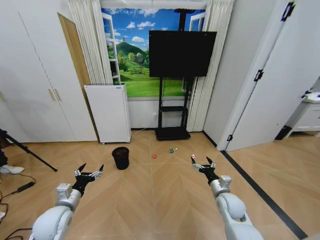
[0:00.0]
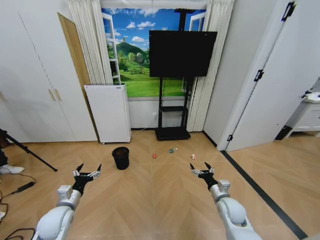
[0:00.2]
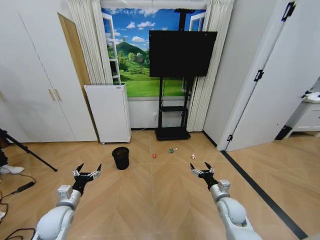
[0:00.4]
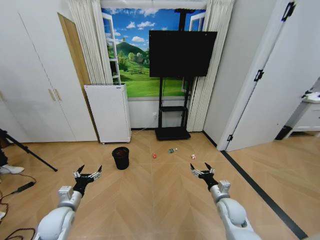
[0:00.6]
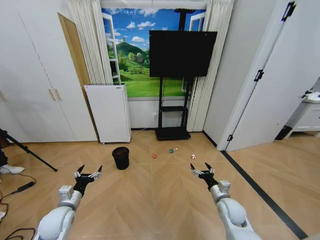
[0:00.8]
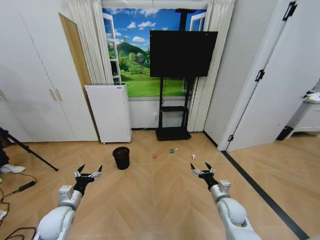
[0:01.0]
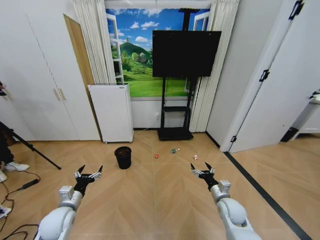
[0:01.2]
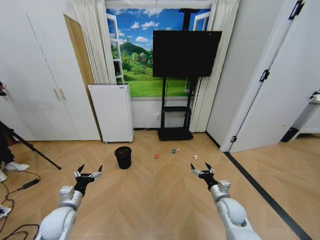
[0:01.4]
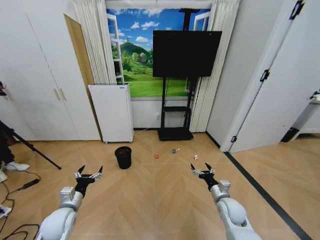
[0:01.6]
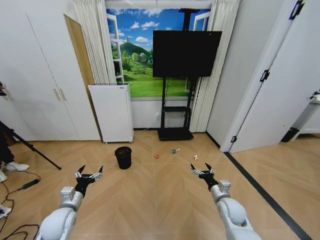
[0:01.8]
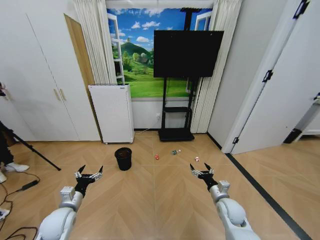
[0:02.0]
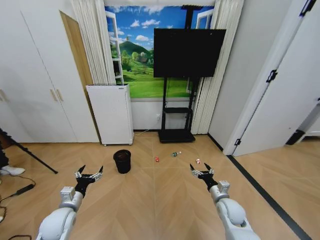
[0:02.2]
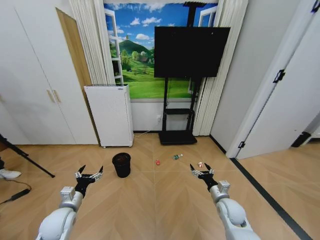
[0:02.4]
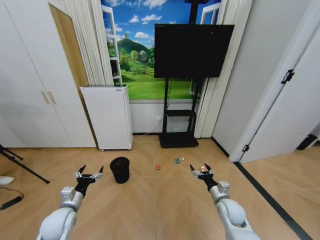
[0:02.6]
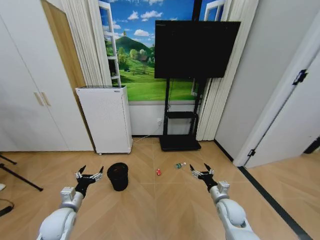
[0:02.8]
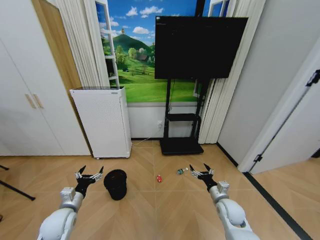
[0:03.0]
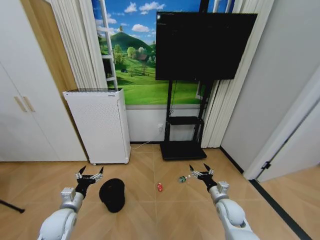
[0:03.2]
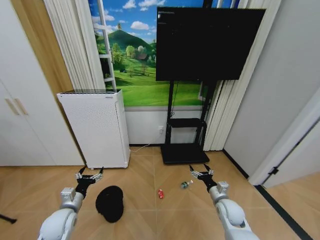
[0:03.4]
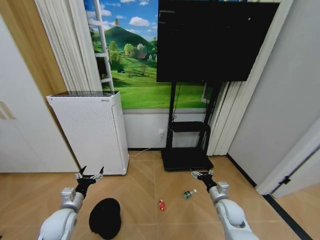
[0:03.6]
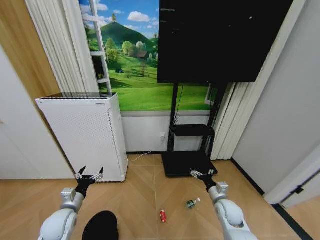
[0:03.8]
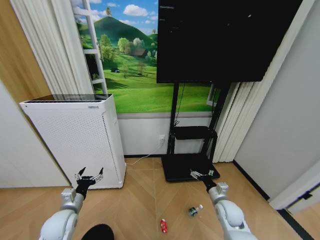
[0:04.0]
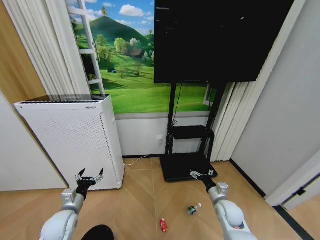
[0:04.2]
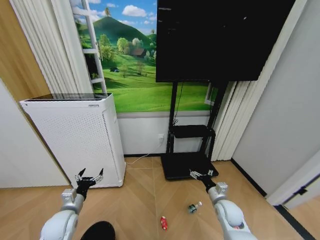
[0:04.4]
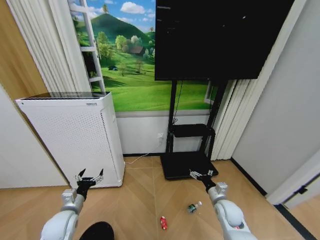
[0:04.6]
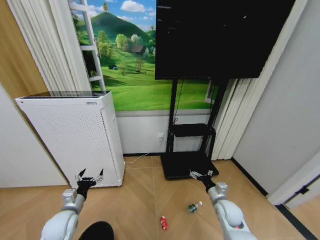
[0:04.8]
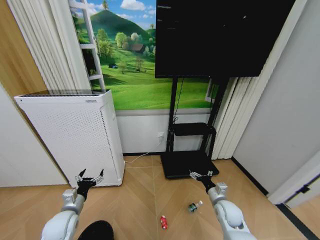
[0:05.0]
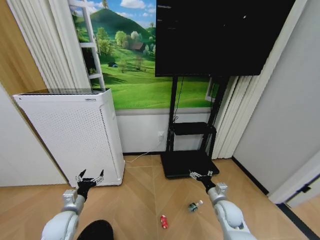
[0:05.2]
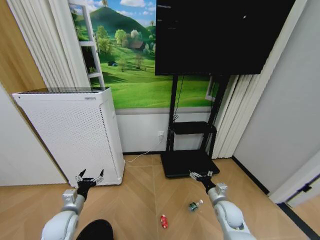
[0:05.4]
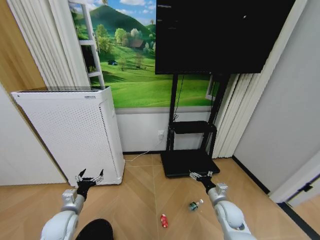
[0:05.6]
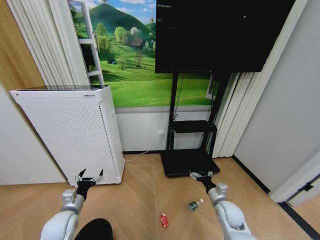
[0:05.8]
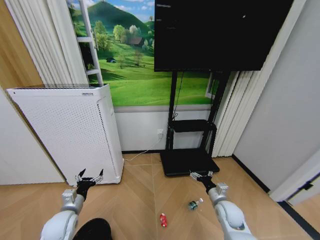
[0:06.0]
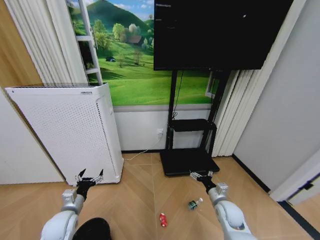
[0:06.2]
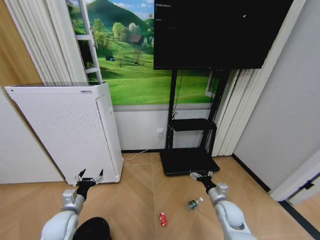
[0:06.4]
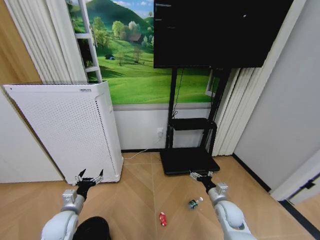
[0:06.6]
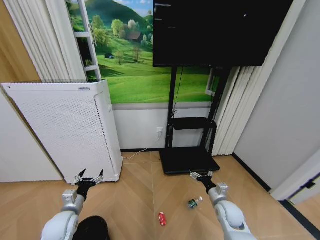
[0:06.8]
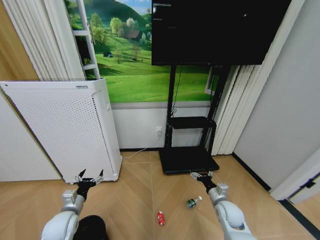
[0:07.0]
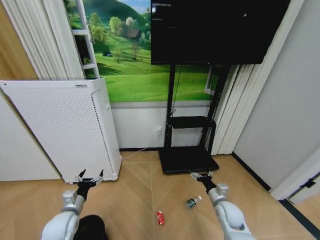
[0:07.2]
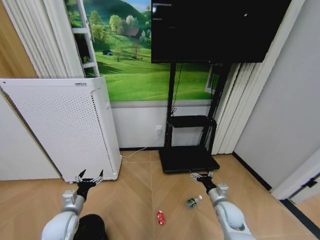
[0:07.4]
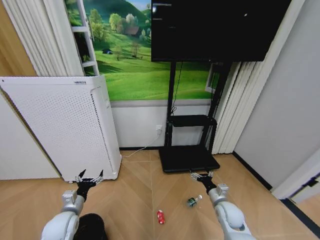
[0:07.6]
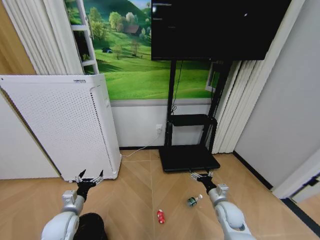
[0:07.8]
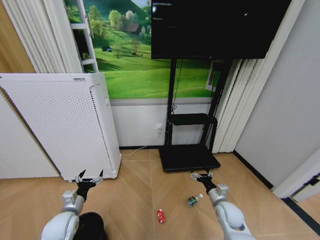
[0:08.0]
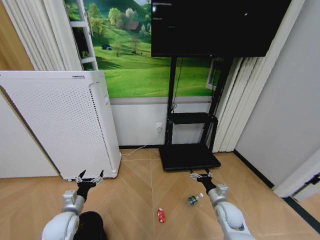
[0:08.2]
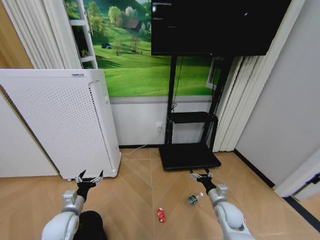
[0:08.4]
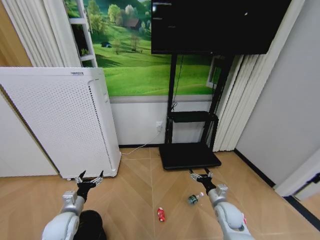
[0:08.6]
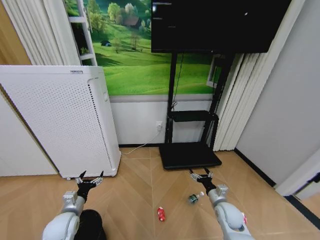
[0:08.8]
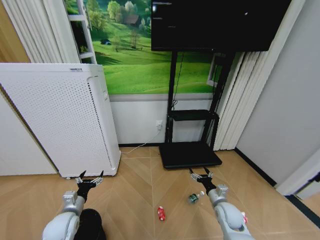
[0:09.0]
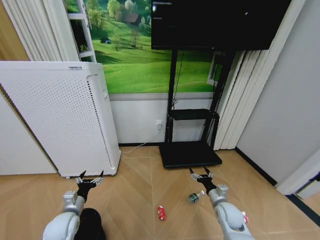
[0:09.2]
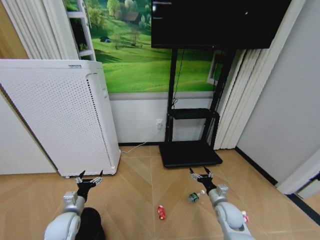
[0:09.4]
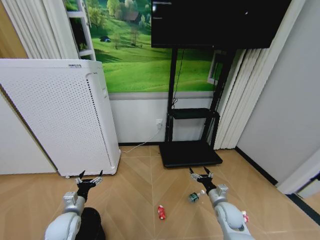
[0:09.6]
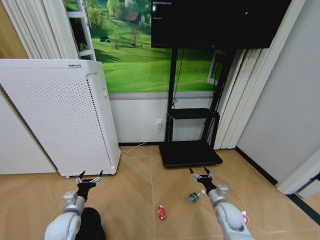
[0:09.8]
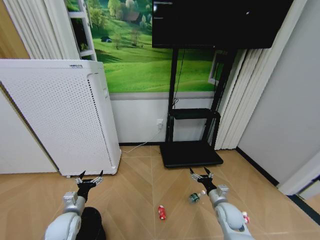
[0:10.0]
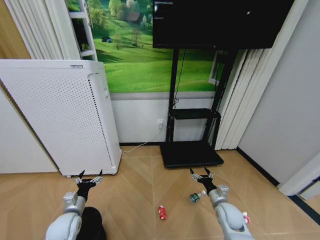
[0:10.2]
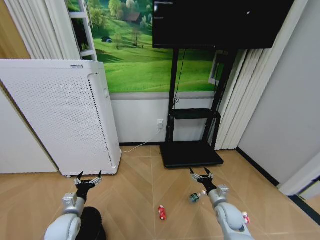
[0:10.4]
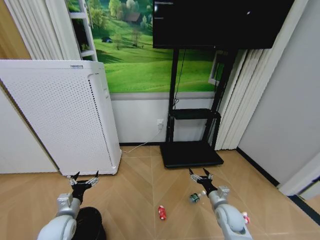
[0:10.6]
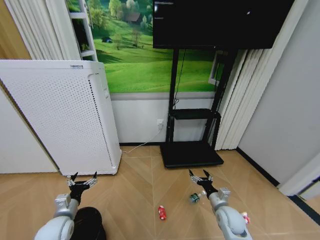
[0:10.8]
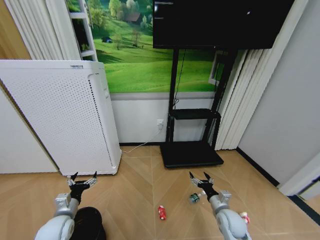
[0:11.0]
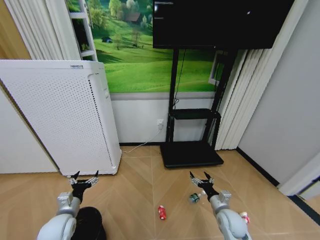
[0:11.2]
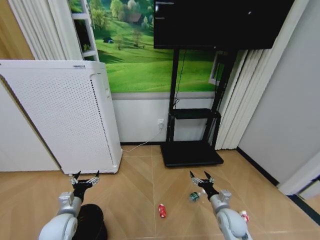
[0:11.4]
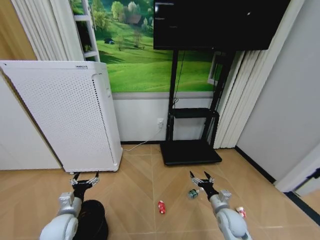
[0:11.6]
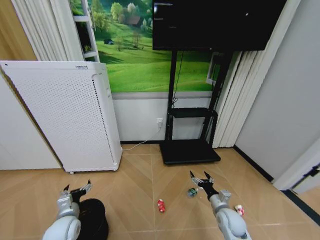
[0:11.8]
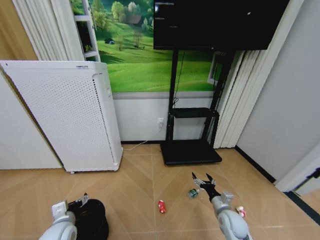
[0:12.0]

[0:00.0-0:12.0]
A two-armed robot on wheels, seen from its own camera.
Task of the whole recording: Pick up the trash bin and place the garbage on the floor into it.
0:07.6 to 0:09.0: Neither gripper changes place.
0:09.0 to 0:10.4: Both grippers stay put.
0:10.4 to 0:12.0: The left gripper changes place by roughly 5 cm.

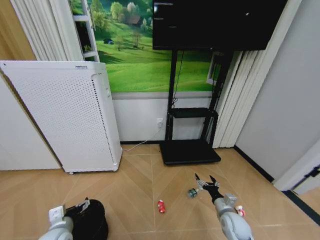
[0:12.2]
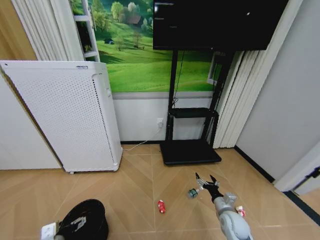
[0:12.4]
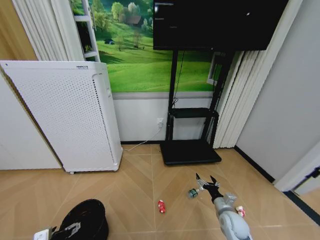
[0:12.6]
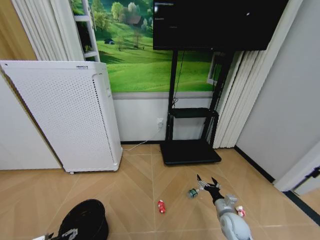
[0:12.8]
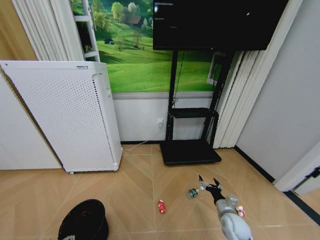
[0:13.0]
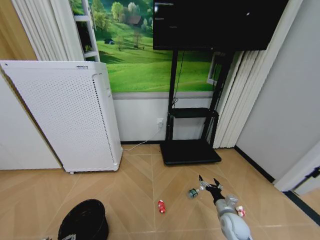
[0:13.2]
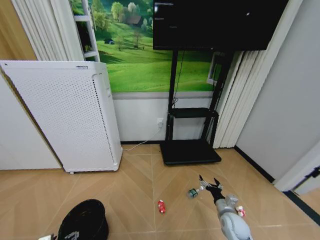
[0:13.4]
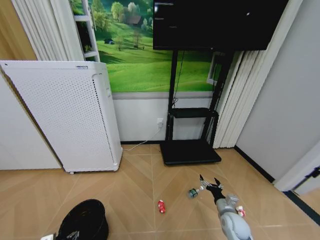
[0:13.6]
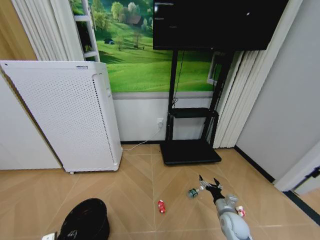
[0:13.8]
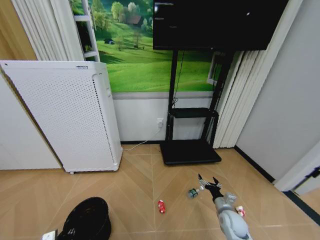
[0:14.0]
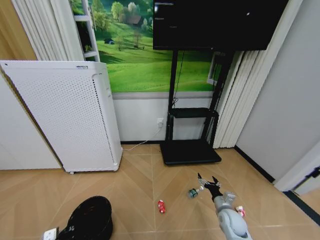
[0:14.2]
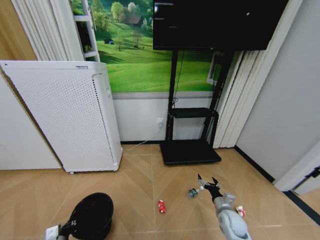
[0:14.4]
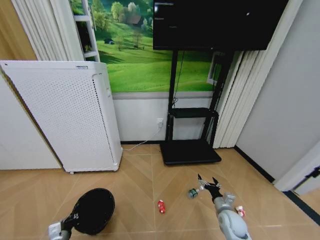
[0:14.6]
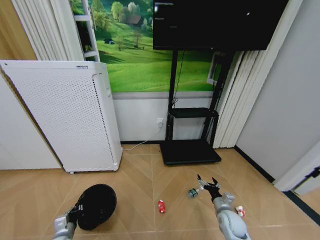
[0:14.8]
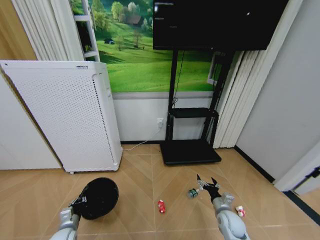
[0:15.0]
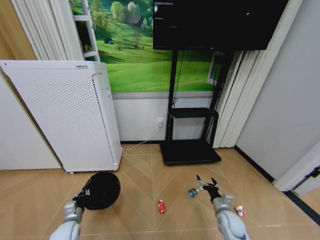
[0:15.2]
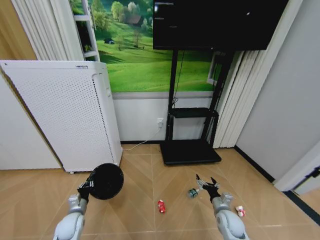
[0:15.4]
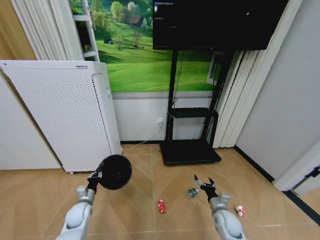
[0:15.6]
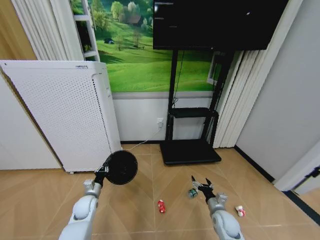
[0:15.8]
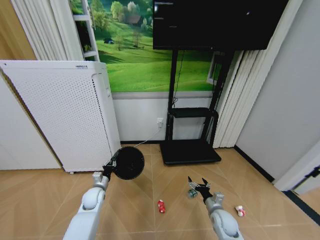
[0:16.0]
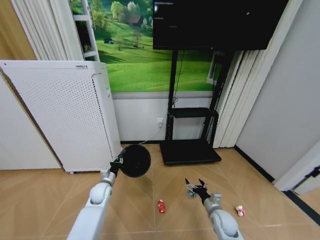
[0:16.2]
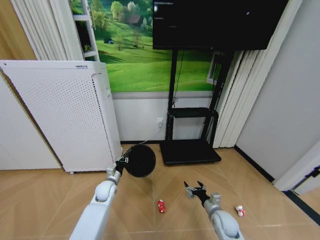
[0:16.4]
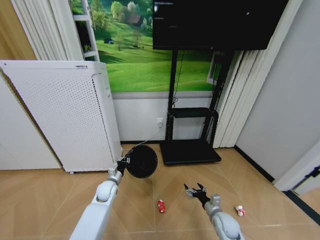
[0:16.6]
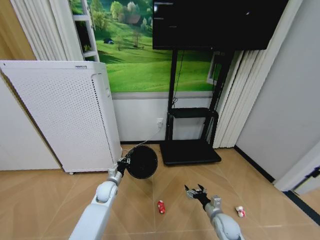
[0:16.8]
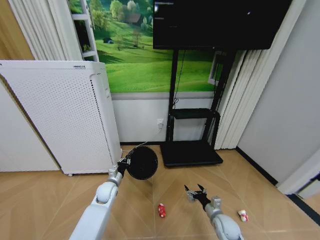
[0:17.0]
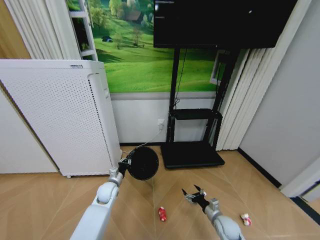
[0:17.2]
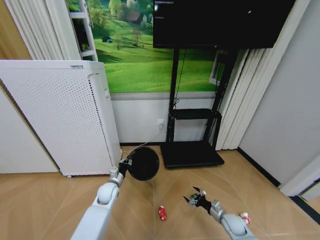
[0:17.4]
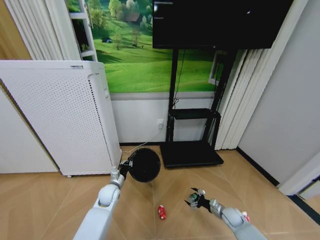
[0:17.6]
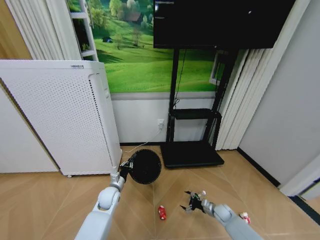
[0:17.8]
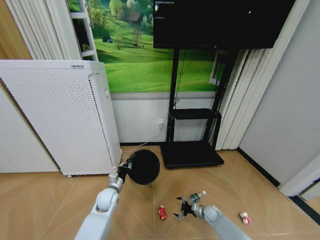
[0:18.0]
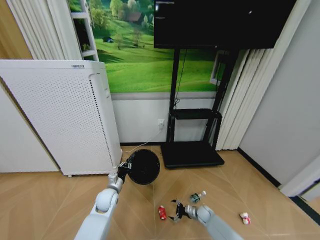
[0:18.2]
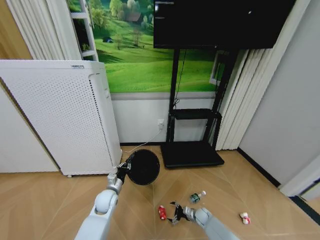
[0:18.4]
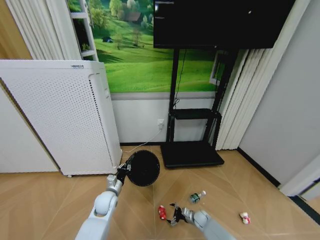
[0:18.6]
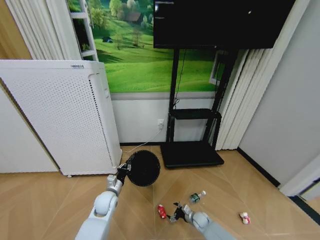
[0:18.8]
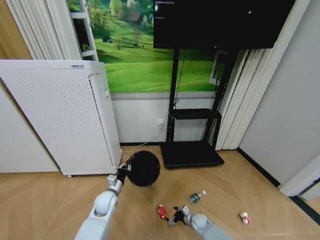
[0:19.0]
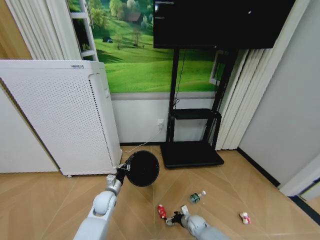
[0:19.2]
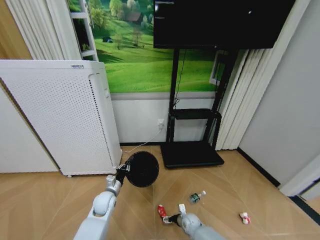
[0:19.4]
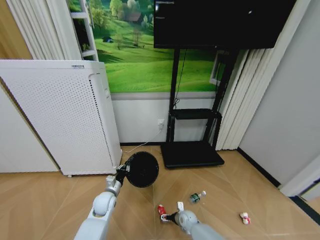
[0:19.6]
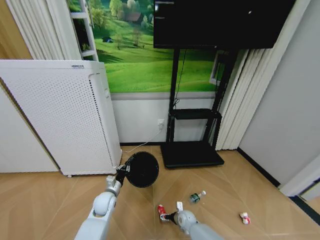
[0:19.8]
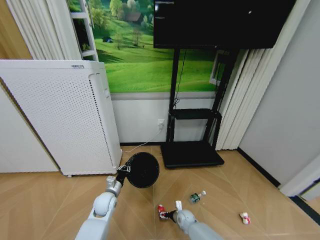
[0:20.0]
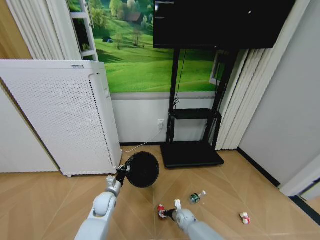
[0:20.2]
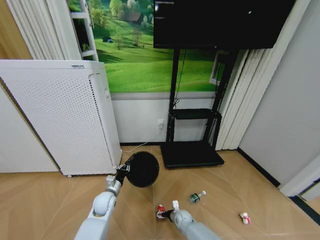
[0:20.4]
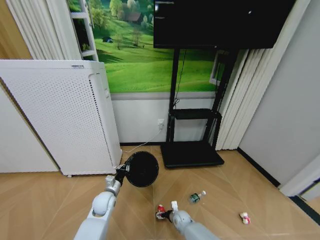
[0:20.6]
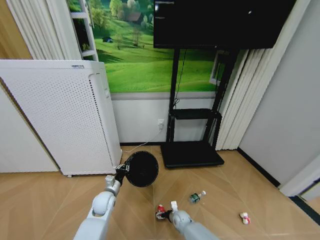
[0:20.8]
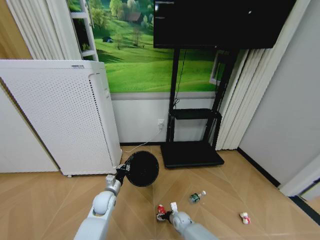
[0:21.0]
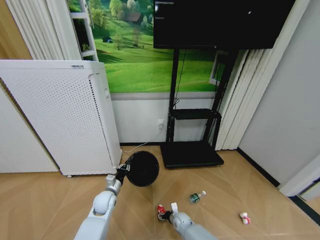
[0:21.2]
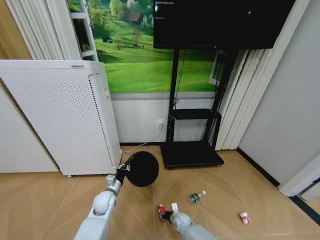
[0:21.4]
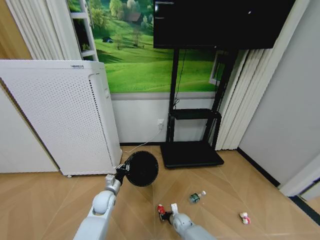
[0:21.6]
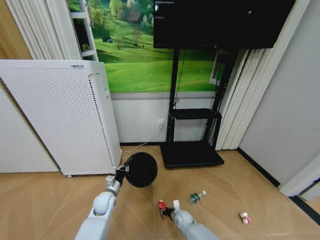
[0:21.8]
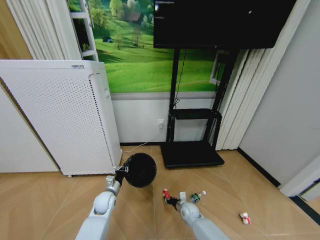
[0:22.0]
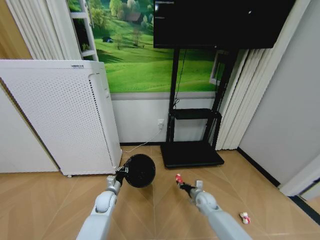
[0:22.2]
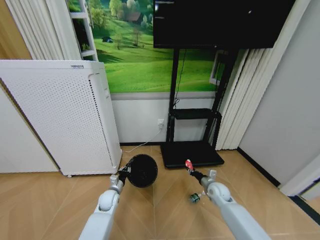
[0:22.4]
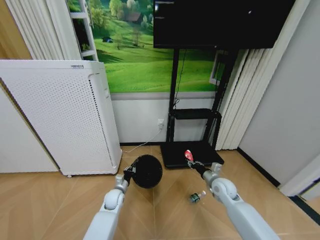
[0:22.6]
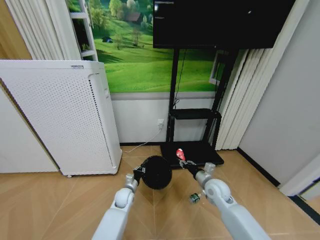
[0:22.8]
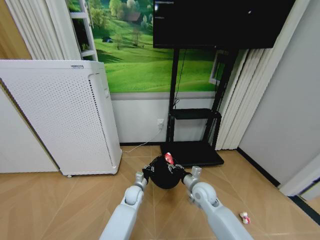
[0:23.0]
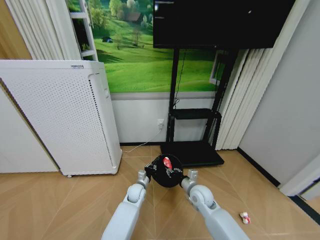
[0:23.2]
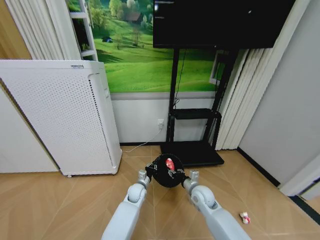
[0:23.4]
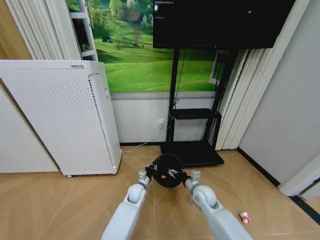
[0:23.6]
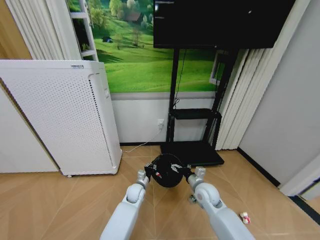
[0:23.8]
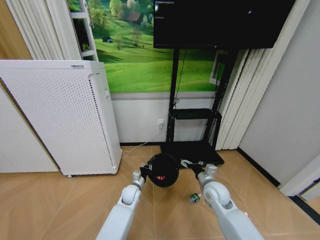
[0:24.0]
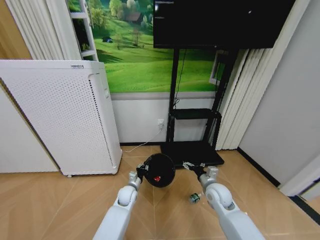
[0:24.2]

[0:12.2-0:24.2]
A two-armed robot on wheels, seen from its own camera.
Task of the whole recording: Pick up the trash bin and place the garbage on the floor into it.
0:12.2 to 0:13.8: The left gripper goes about 15 cm downward, to the left and backward, and closes.
0:13.8 to 0:15.2: The left gripper shifts roughly 10 cm forward, and closes.
0:15.2 to 0:16.6: The left gripper travels forward and to the right by roughly 20 cm.
0:16.6 to 0:18.2: The right gripper travels downward and forward by about 20 cm.
0:18.2 to 0:19.8: The right gripper moves to the left, roughly 15 cm.
0:19.8 to 0:21.2: The grippers make only small movements.
0:21.2 to 0:22.6: The left gripper changes place by approximately 5 cm, while the right gripper heads upward and to the right, covering about 30 cm, and closes its fingers.
0:22.6 to 0:24.2: The left gripper goes approximately 5 cm to the right. Meanwhile the right gripper opens up.
